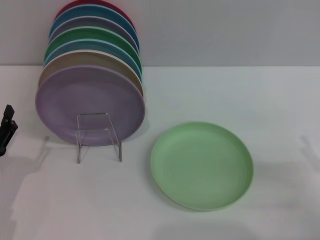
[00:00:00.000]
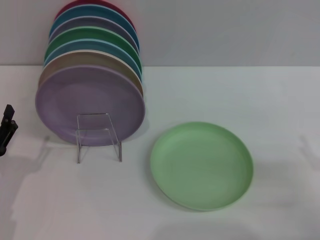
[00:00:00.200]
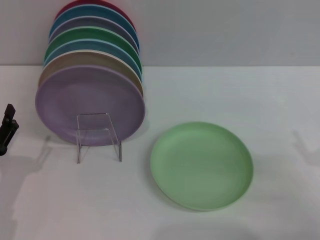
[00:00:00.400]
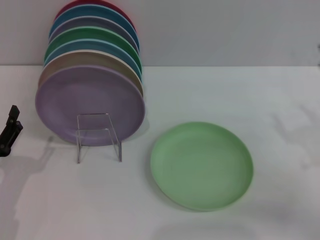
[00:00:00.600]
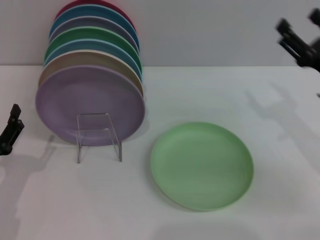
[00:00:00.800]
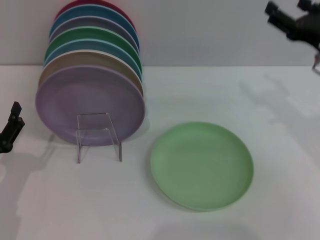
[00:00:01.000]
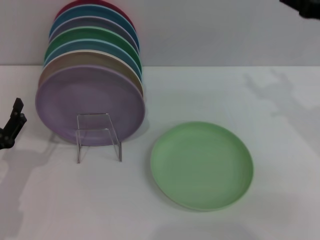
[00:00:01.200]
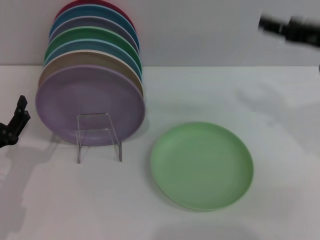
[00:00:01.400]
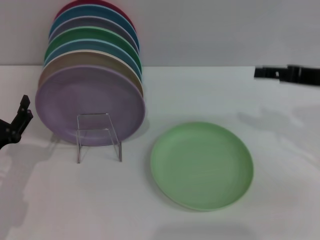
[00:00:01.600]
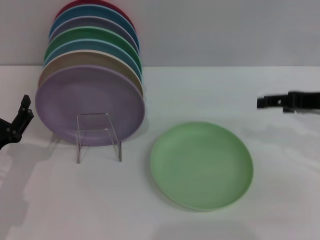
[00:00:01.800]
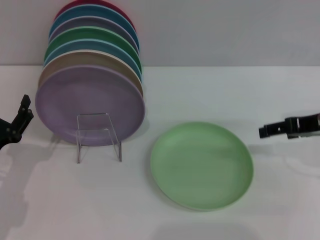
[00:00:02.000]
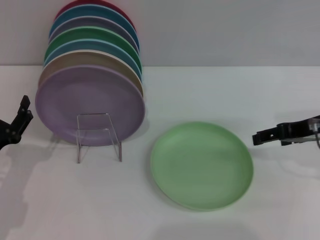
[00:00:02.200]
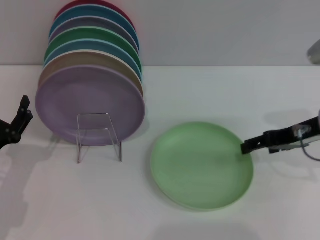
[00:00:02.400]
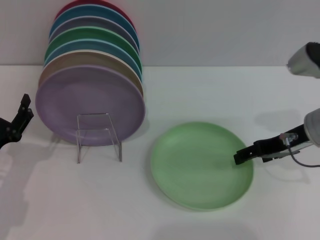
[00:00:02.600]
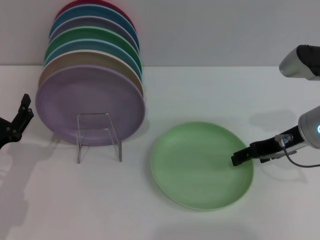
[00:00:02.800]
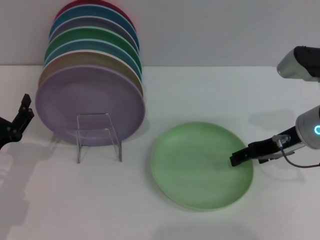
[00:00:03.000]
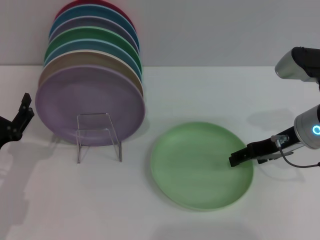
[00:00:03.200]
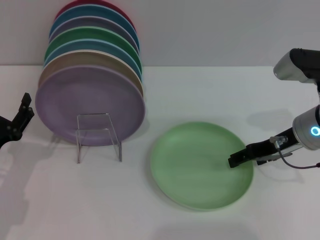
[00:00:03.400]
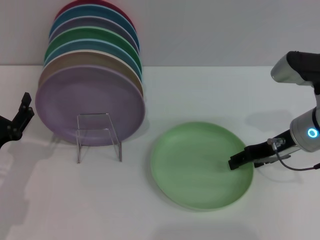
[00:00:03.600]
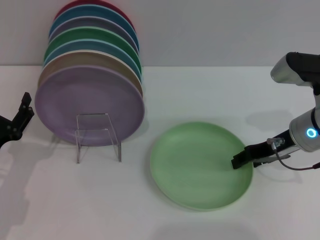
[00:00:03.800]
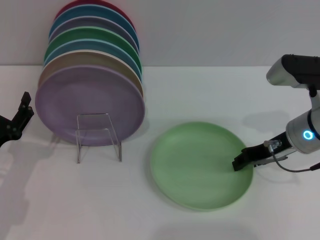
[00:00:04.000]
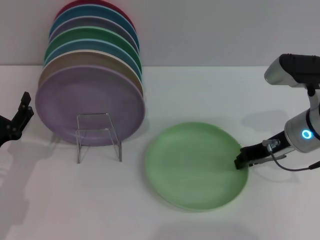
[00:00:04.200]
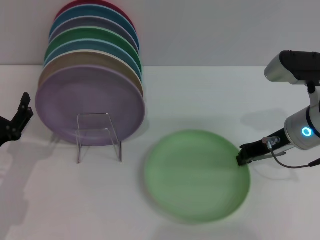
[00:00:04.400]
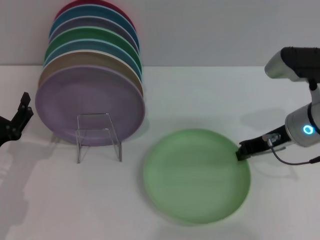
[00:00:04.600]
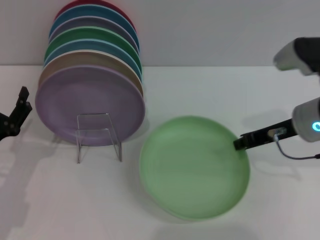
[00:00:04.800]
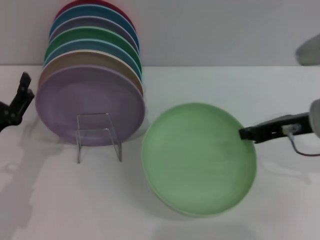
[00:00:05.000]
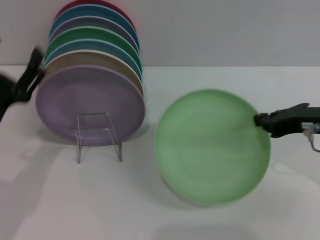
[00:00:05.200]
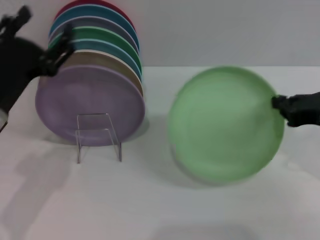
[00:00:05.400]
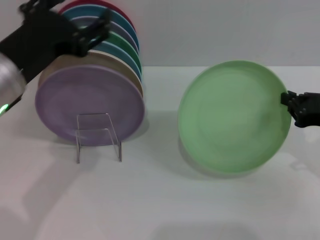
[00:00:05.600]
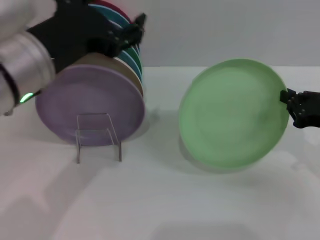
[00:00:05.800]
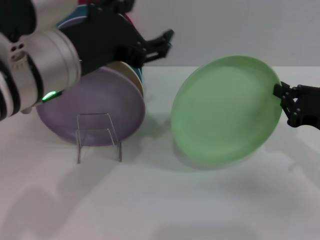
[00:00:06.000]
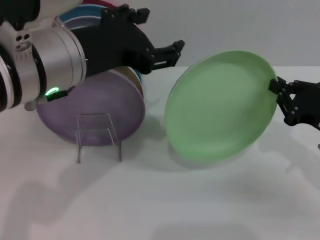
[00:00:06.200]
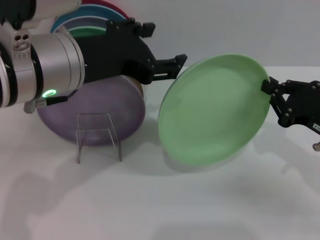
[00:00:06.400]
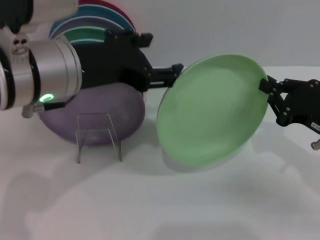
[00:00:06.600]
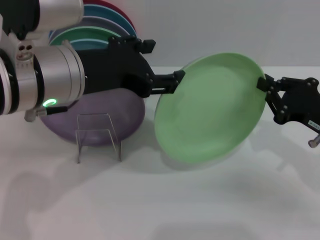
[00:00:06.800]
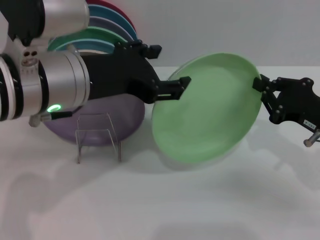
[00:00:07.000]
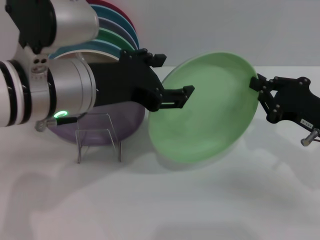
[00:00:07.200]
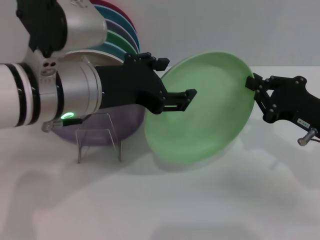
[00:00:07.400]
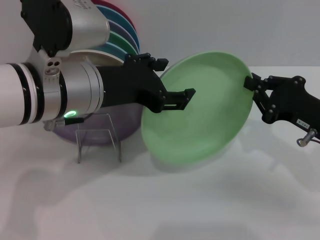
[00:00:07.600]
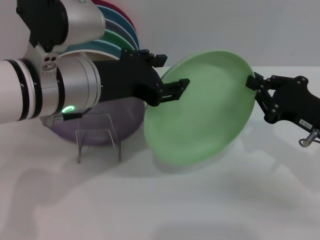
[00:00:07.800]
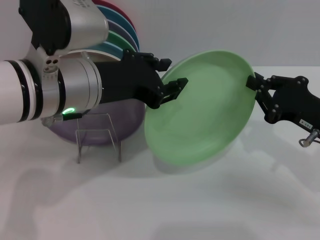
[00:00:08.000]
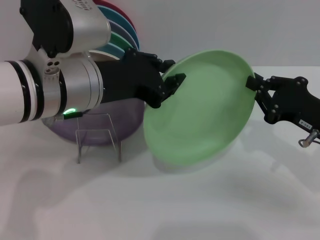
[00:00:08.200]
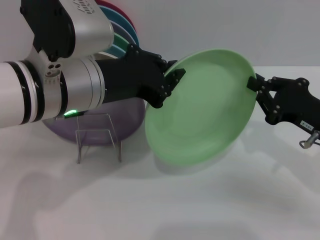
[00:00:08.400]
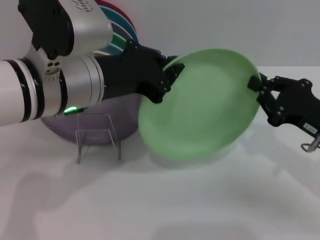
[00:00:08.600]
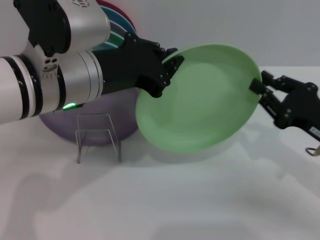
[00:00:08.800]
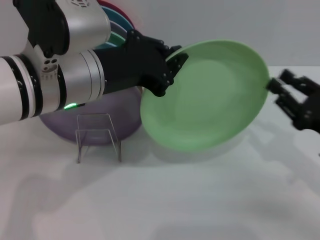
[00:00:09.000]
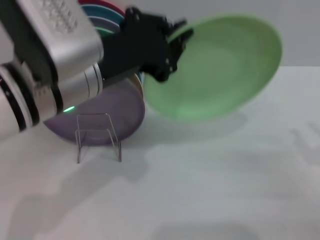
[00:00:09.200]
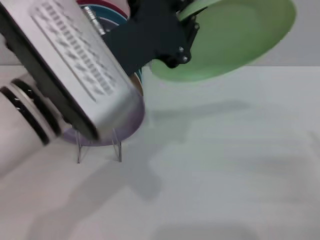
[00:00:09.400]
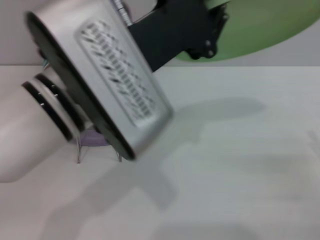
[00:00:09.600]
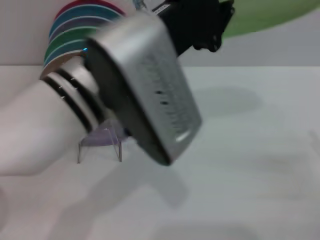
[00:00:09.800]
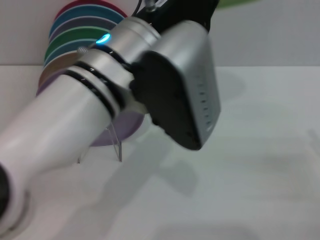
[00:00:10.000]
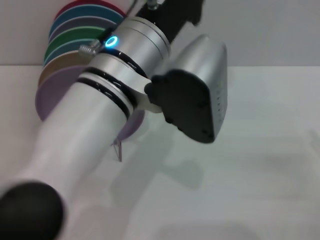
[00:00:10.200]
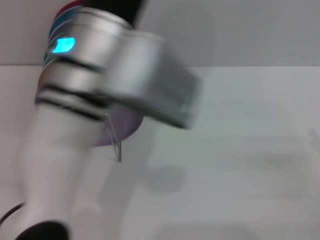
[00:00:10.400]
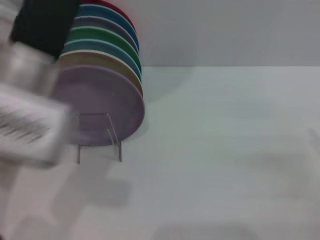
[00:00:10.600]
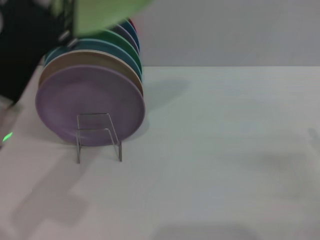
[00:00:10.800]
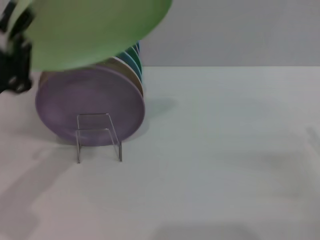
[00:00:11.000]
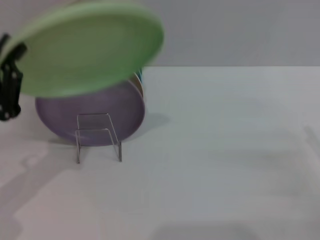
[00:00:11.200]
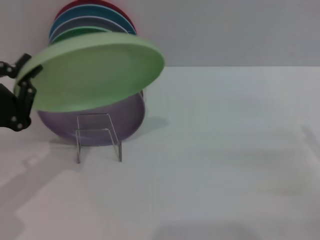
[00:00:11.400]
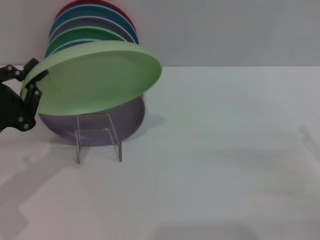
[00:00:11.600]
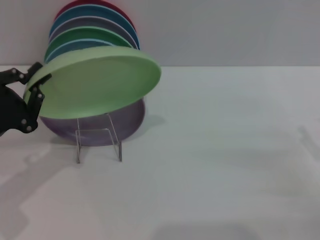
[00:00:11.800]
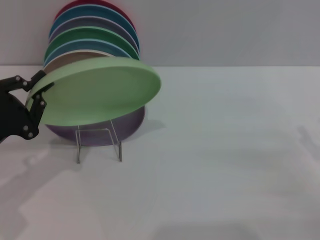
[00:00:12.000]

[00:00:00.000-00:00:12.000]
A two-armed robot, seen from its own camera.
Task of the whole recording: Grip the plate with one hand, pass it to the other, then set it on the shelf.
Step, 00:00:00.000 to 00:00:05.600: Pick up the plate with the right gripper.
Step, 00:00:05.800 to 00:00:09.000: Pass the plate from the right gripper to the left gripper.
00:00:00.000 to 00:00:01.600: The right gripper goes roughly 20 cm upward and forward.
00:00:01.600 to 00:00:03.000: The right gripper is displaced downward by some 5 cm.
00:00:03.000 to 00:00:04.400: The right gripper closes its fingers.
00:00:04.400 to 00:00:06.000: The left gripper shifts approximately 25 cm upward and to the right, while the right gripper moves to the right and backward, approximately 10 cm.
00:00:07.600 to 00:00:09.000: The left gripper closes its fingers.
00:00:09.000 to 00:00:10.400: The right gripper heads to the right, covering approximately 5 cm, and opens.
00:00:10.400 to 00:00:12.000: The left gripper travels to the left and downward by roughly 25 cm.

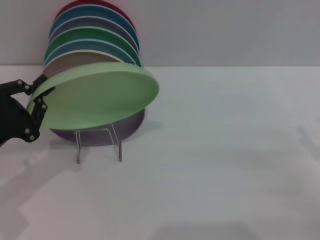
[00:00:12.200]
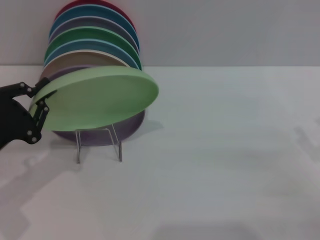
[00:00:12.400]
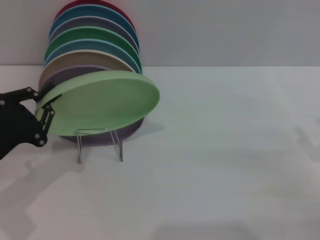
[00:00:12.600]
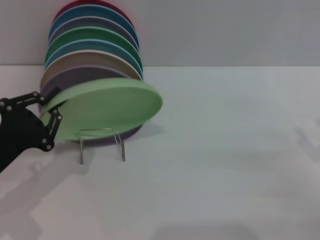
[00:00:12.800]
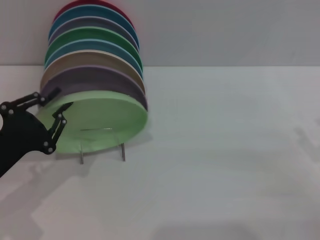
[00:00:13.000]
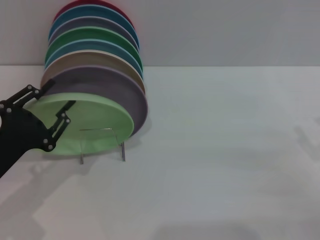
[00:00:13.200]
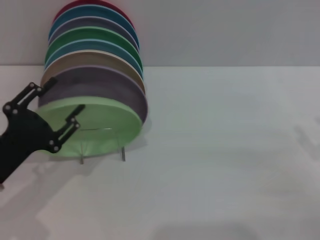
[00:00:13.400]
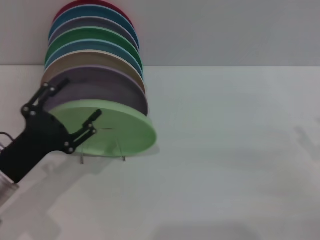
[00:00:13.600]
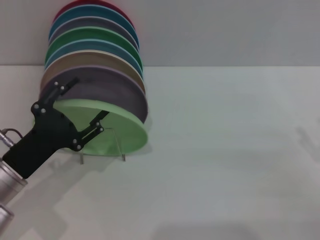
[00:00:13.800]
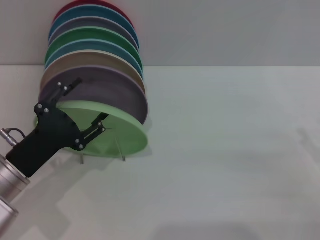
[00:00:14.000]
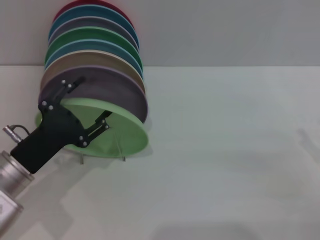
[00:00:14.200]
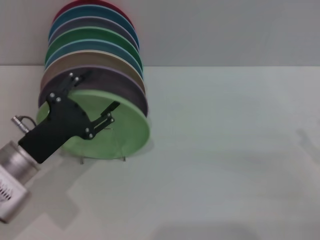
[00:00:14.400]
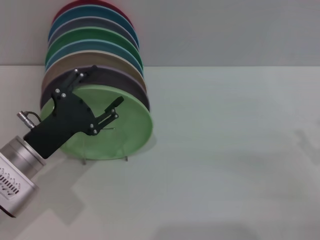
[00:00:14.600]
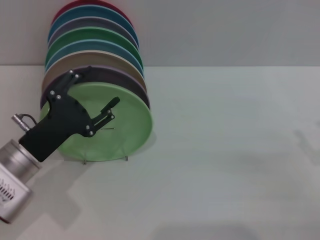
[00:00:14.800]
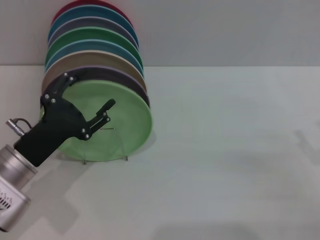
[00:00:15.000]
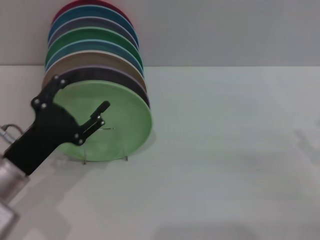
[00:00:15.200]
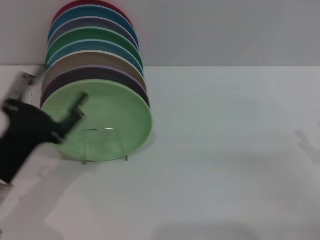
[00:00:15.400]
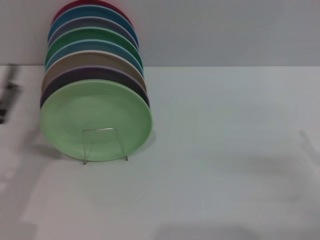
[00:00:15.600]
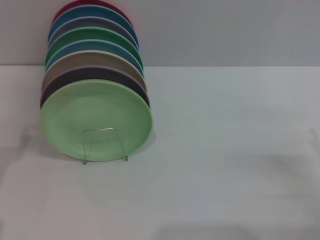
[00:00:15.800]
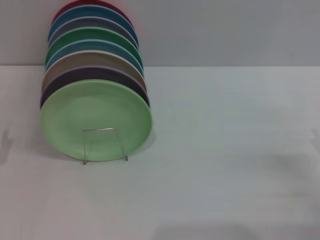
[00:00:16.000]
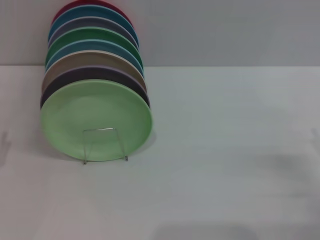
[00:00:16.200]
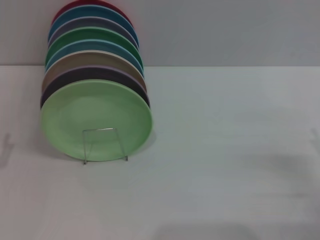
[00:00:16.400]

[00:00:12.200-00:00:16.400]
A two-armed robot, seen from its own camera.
Task of the whole recording: Grip the plate with one hand, pass it to the other, then set it on the shelf.
Step, 00:00:12.200 to 00:00:15.000: Place the plate on the shelf with the left gripper.
00:00:12.200 to 00:00:13.600: The left gripper ends up some 5 cm from where it was, and opens up.
00:00:13.600 to 00:00:15.000: There are only small adjustments of the grippers.
00:00:15.000 to 00:00:16.400: The left gripper travels to the left and backward by some 10 cm.
